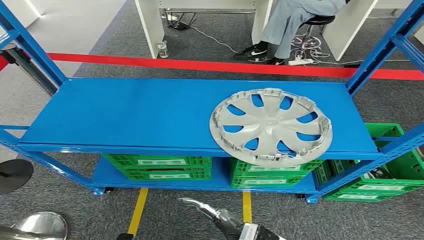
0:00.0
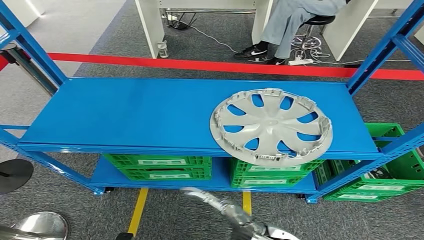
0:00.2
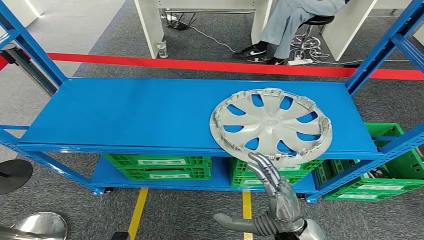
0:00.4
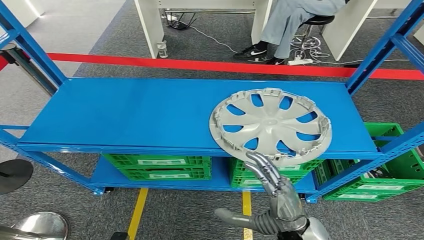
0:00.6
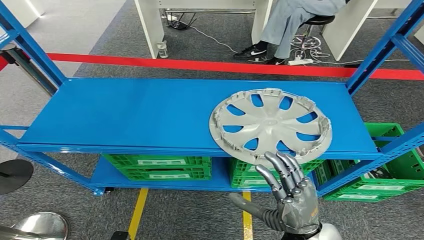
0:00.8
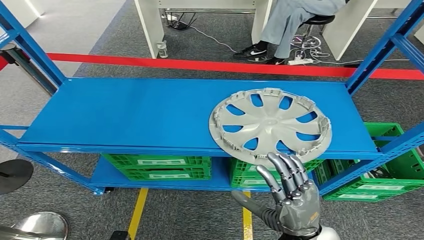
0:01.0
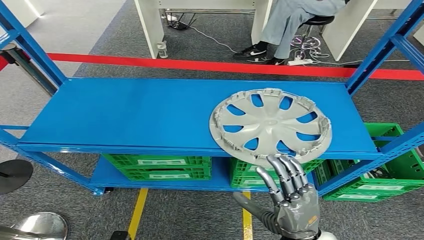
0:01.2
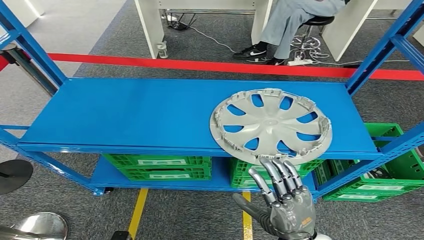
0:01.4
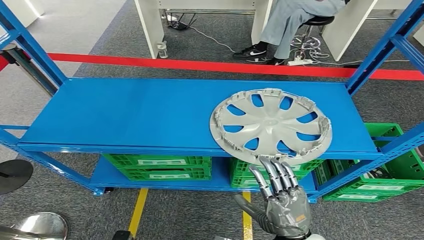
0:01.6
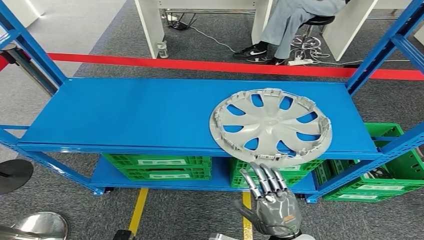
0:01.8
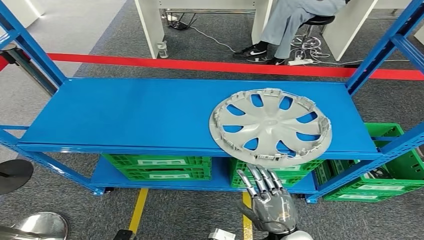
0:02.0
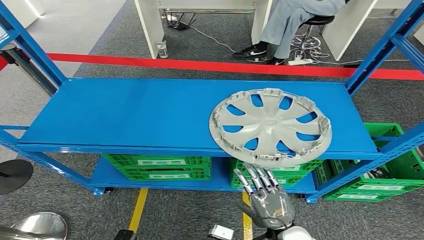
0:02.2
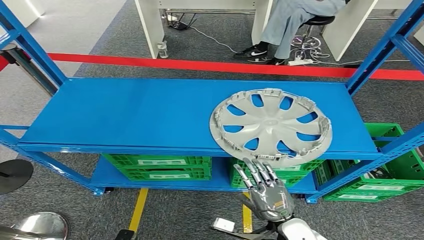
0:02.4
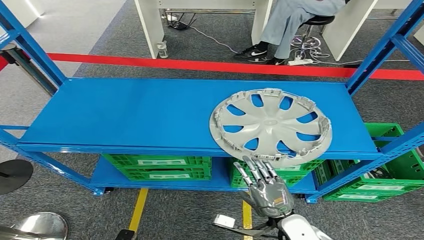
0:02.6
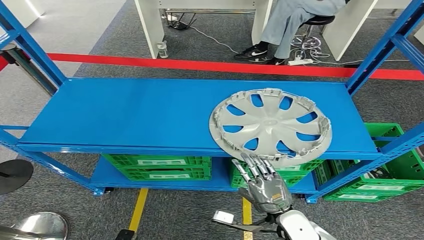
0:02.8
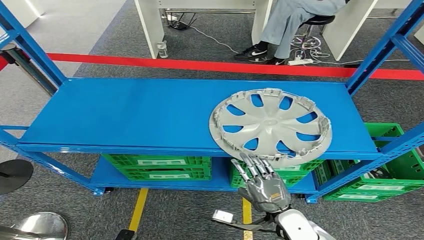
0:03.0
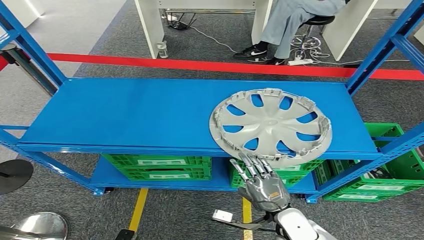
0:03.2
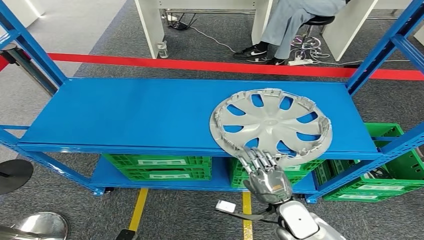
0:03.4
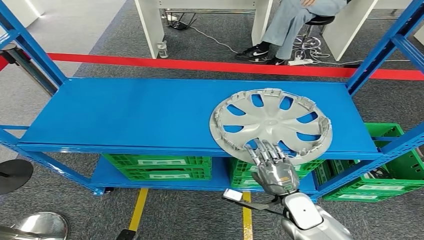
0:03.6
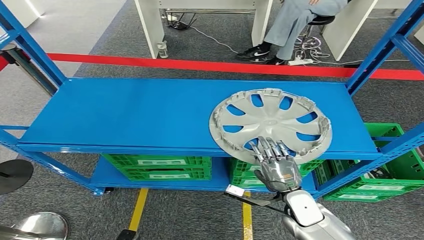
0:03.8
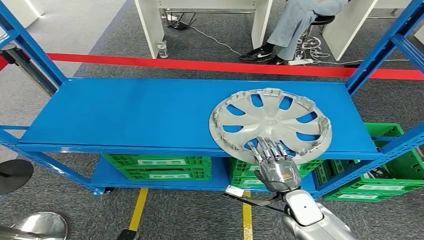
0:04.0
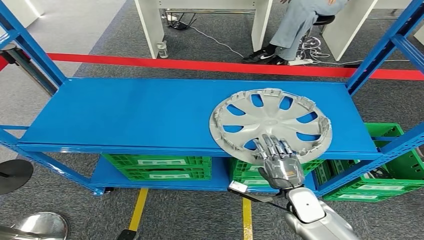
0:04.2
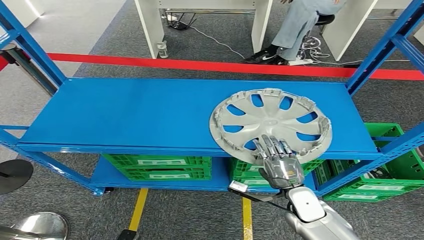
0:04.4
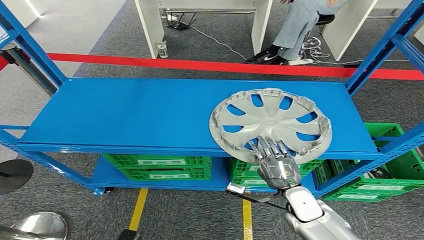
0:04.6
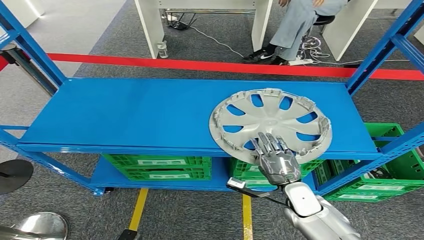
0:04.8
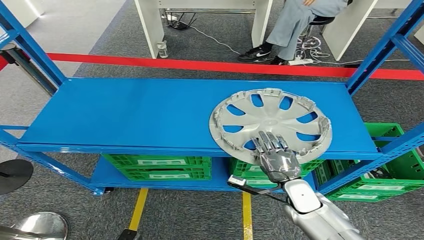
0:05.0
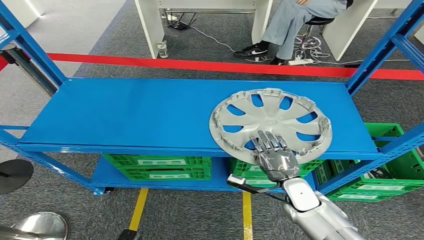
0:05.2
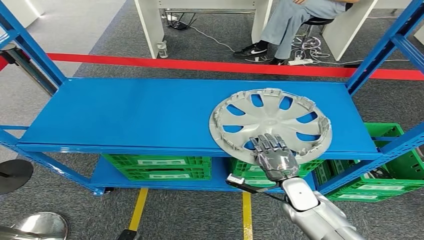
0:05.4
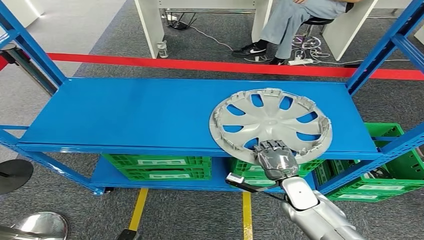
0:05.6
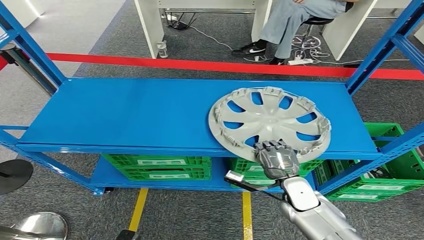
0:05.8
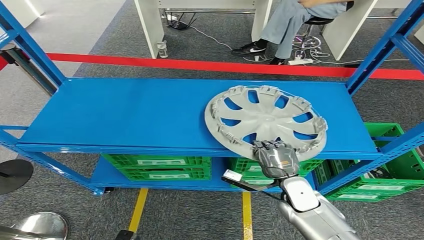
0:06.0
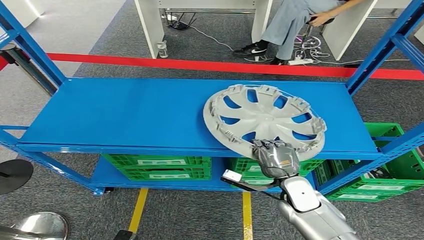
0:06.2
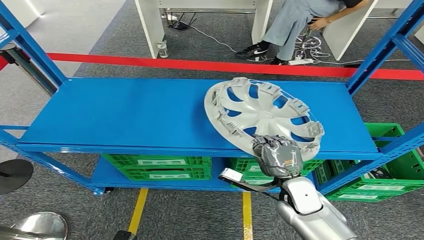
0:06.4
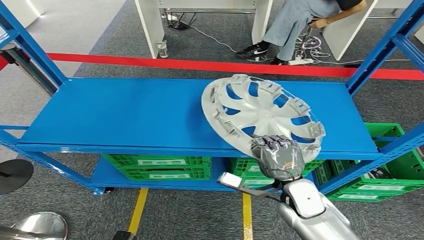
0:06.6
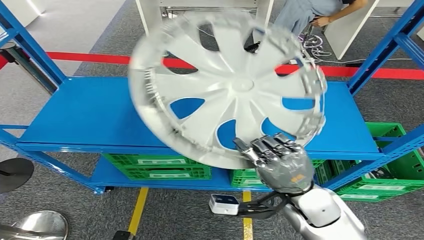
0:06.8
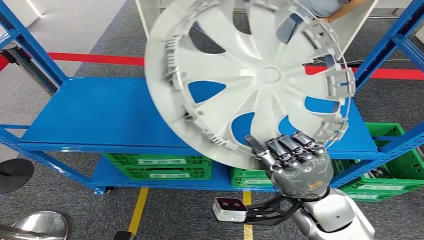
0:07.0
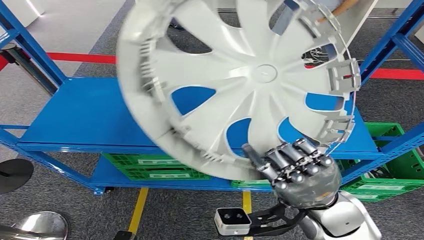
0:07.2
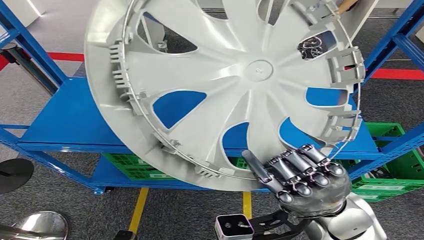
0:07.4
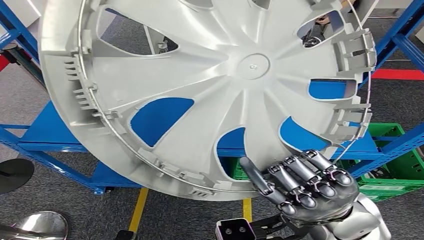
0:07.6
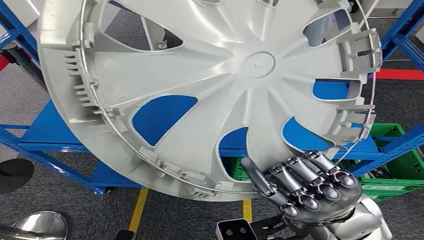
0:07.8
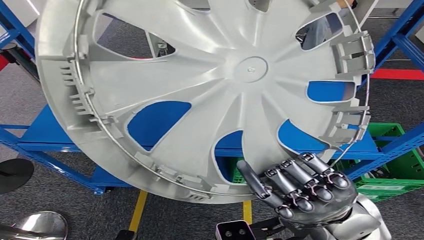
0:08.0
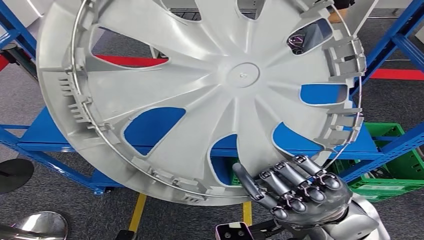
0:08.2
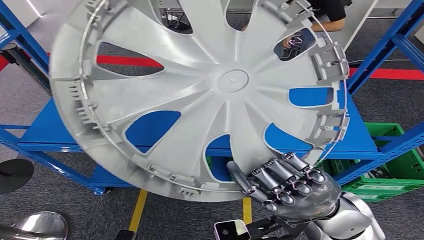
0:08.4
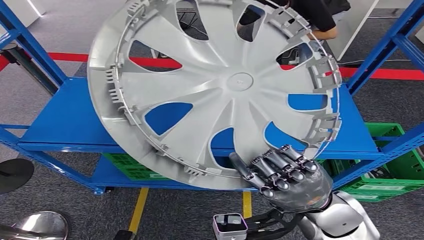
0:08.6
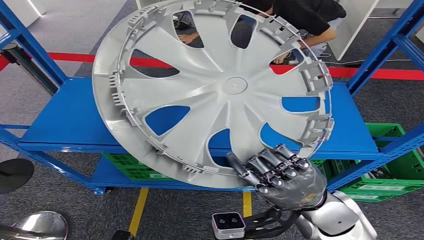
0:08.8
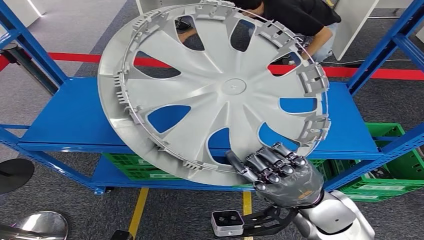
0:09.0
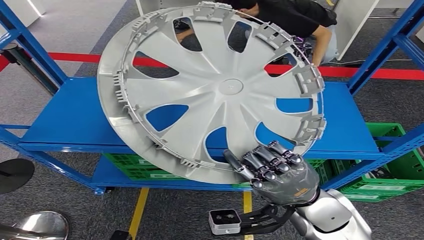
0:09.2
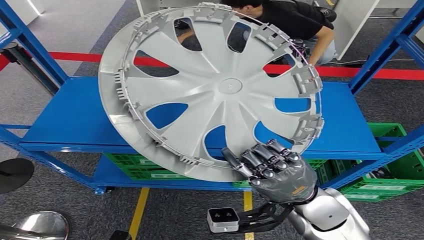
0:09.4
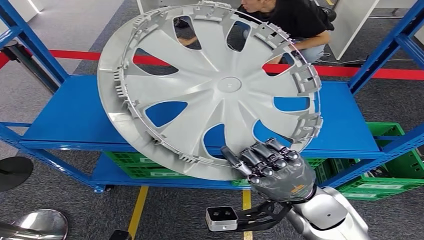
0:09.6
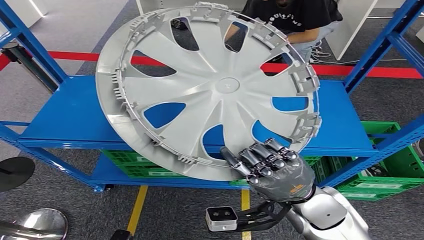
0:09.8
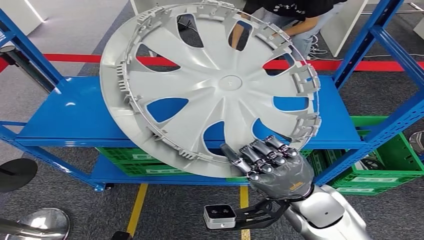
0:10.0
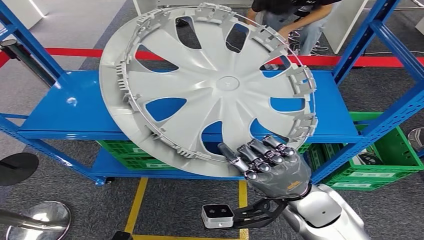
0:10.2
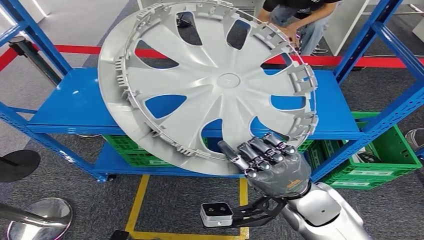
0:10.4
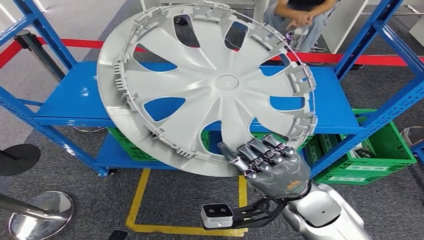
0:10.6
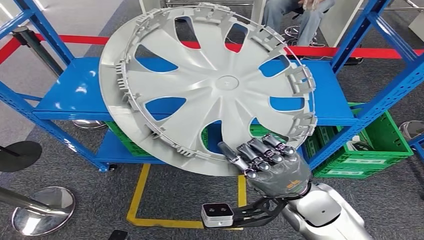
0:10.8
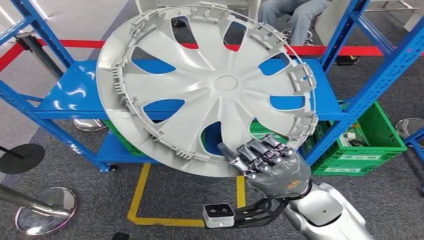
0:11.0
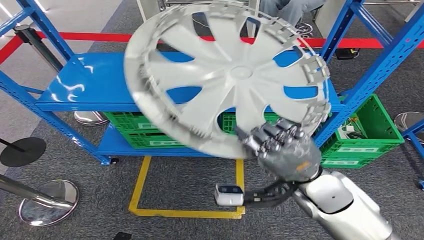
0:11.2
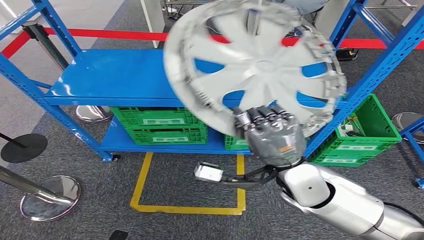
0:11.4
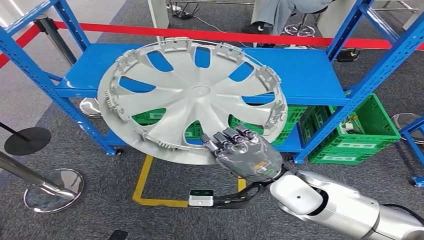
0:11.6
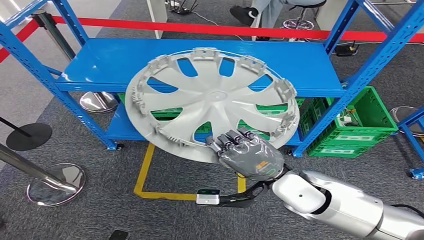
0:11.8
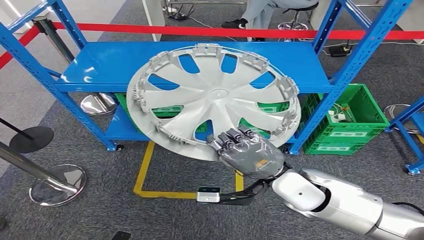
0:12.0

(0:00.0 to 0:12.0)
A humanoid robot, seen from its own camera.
Step, 0:00.0 - 0:10.0: Take small components from the rack.
0:01.6 - 0:03.0: The right hand travels downward and forward by roughly 10 cm.
0:03.0 - 0:04.4: The right hand heads forward, covering some 5 cm.
0:04.4 - 0:06.0: The hands stay close to where they were, moving slightly.

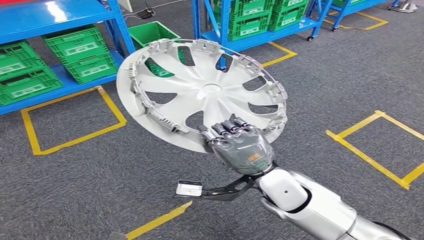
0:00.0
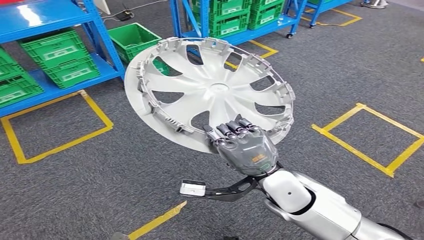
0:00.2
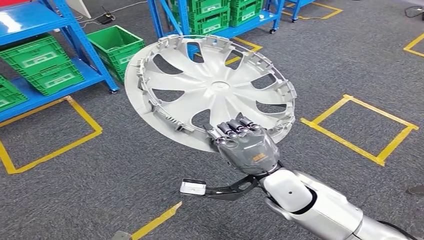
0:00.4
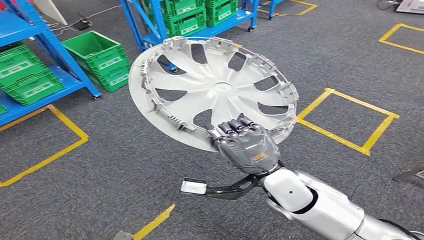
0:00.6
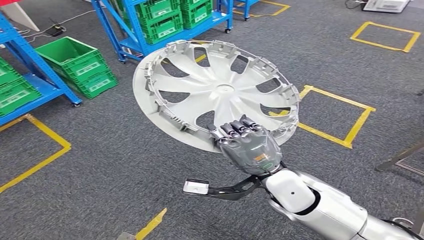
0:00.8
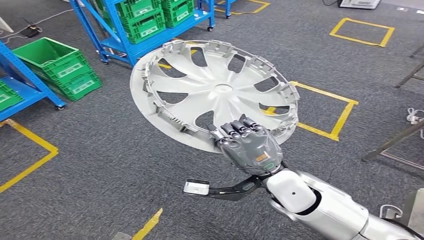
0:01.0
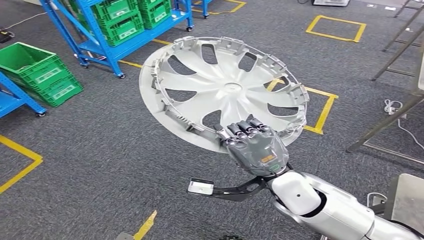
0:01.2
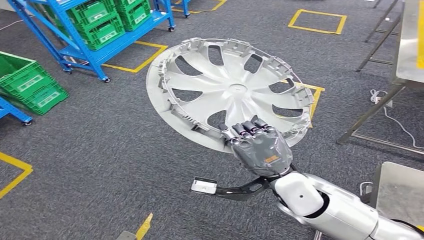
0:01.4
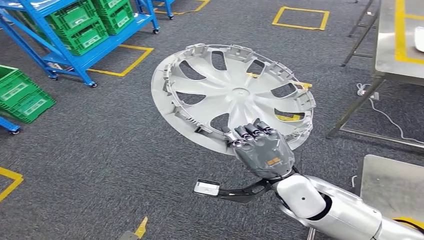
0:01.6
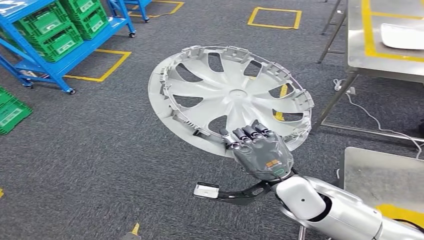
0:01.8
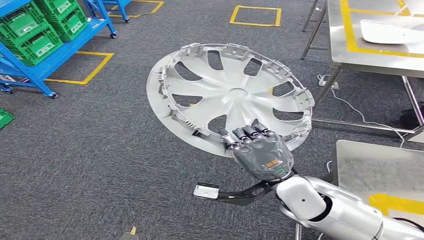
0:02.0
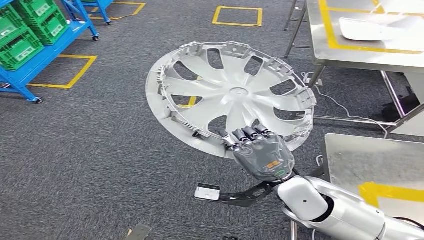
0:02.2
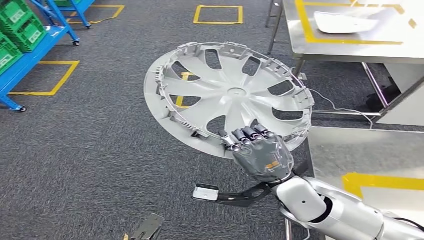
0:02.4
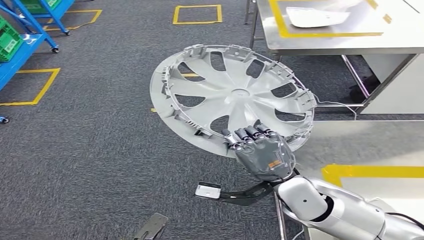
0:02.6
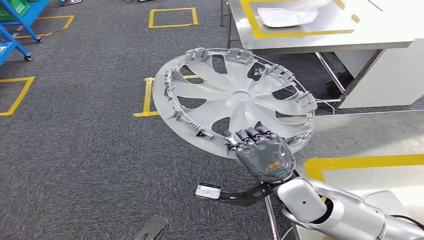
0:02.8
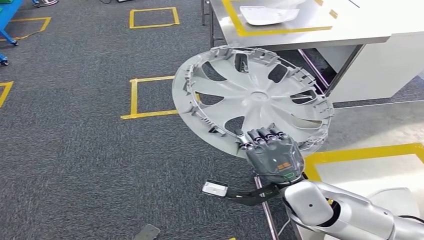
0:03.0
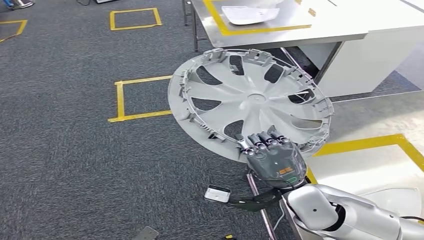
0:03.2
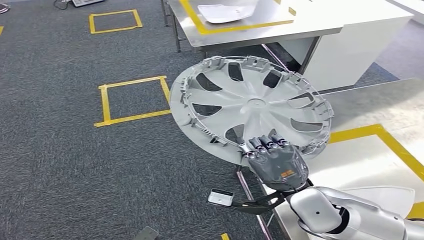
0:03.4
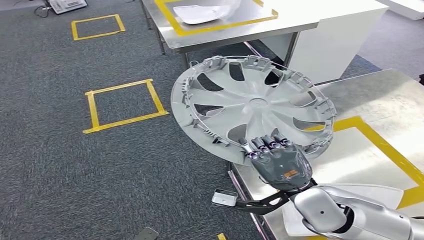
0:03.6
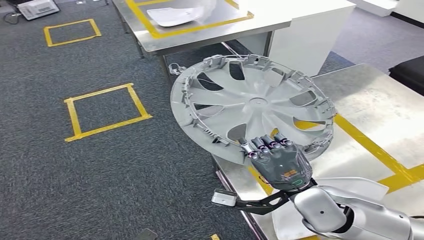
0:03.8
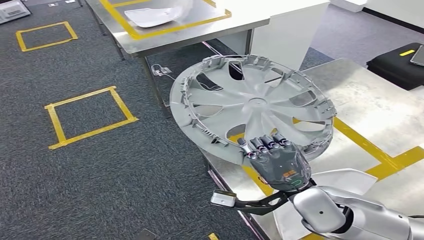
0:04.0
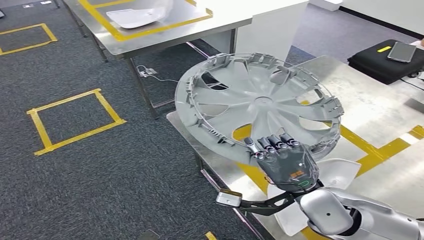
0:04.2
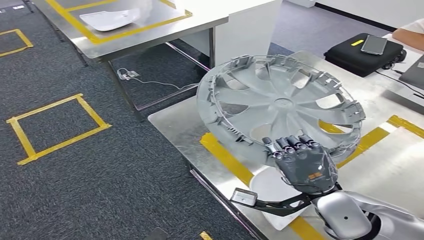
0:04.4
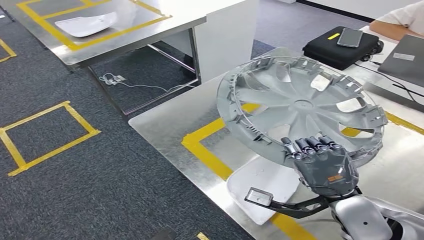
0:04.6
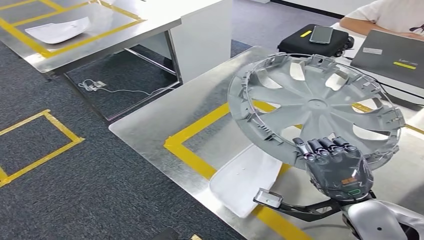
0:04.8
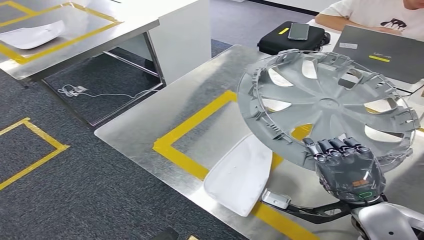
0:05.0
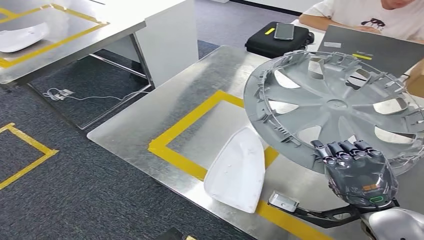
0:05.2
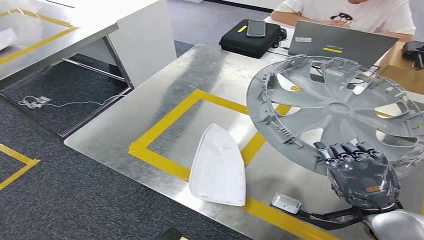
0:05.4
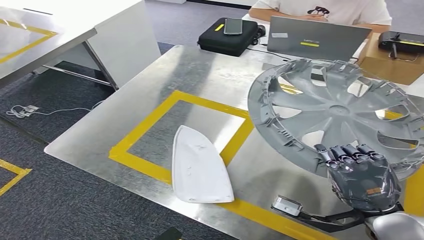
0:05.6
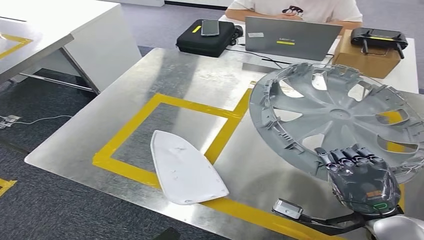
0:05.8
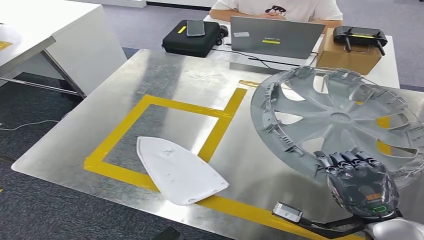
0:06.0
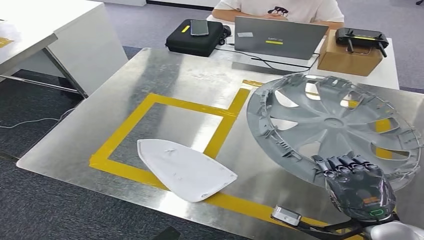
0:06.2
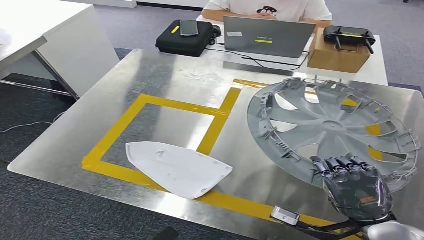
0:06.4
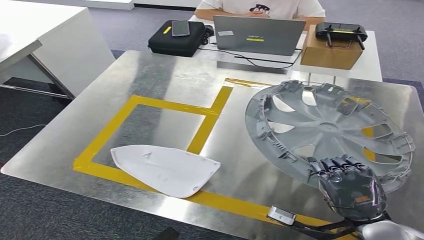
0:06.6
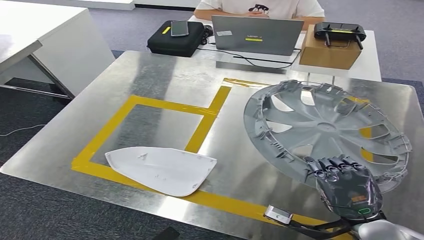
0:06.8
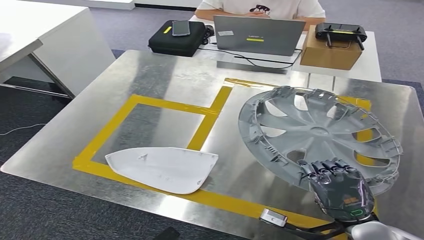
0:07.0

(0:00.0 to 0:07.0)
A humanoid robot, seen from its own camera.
Step, 0:00.0 - 0:05.0: Move the small parts to the workbench.
